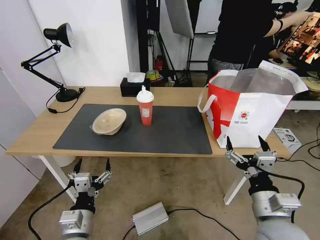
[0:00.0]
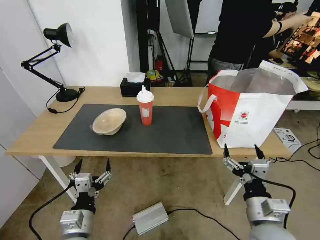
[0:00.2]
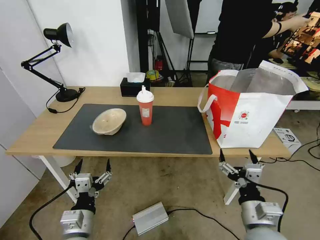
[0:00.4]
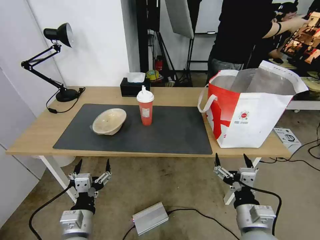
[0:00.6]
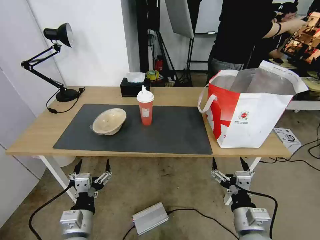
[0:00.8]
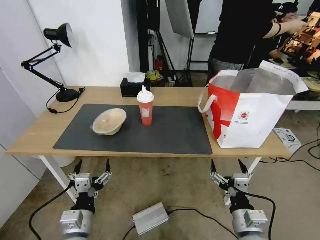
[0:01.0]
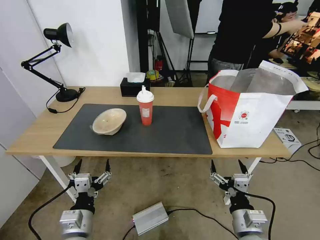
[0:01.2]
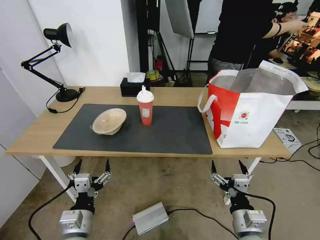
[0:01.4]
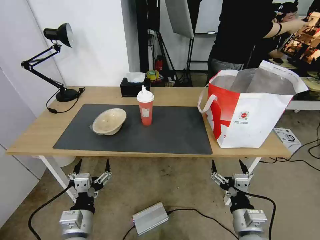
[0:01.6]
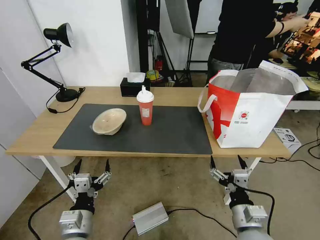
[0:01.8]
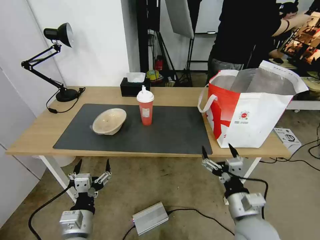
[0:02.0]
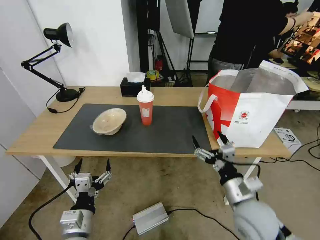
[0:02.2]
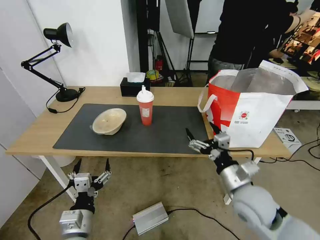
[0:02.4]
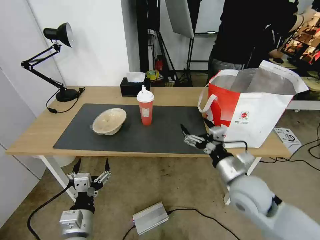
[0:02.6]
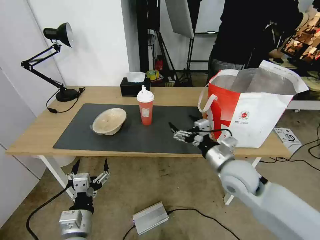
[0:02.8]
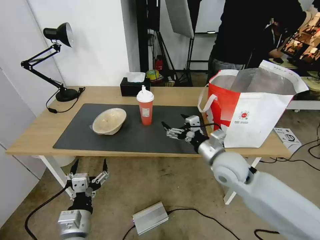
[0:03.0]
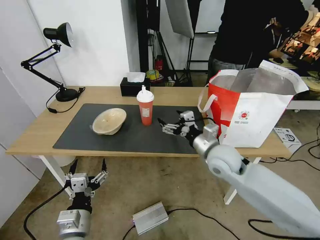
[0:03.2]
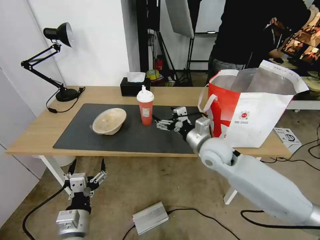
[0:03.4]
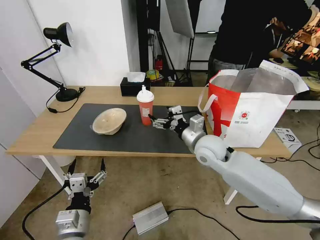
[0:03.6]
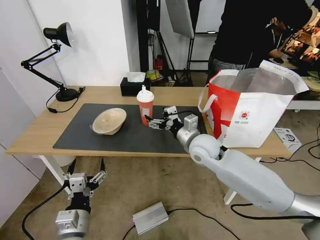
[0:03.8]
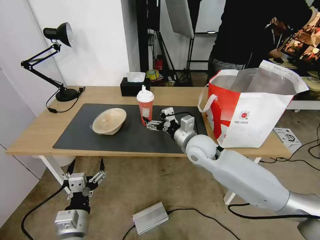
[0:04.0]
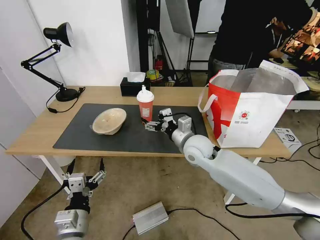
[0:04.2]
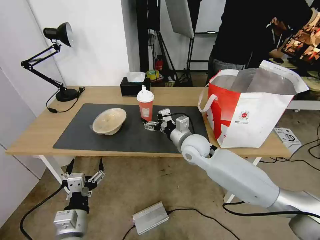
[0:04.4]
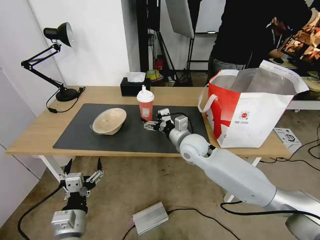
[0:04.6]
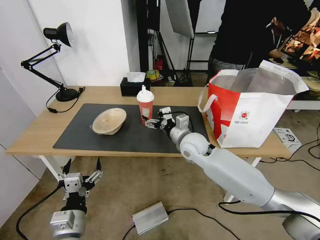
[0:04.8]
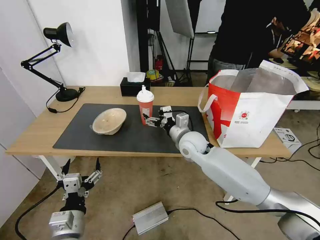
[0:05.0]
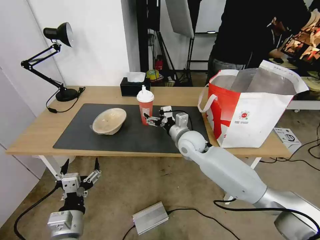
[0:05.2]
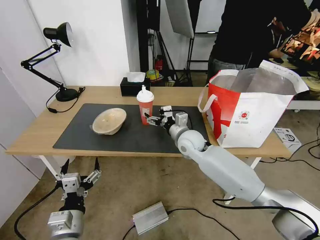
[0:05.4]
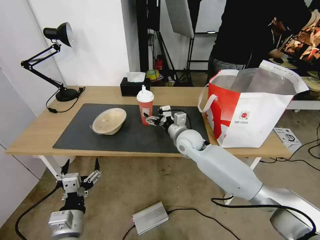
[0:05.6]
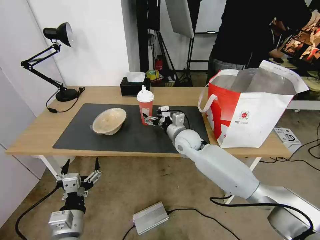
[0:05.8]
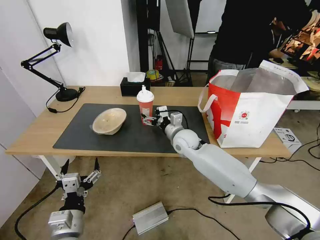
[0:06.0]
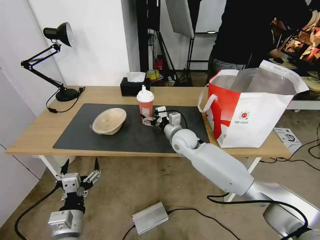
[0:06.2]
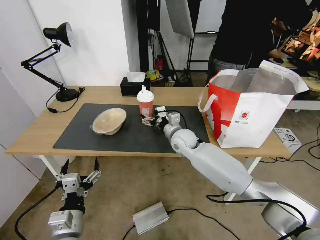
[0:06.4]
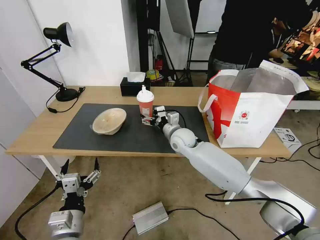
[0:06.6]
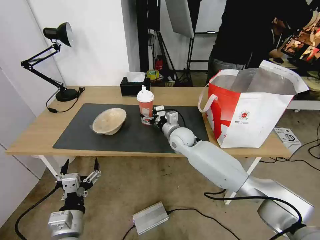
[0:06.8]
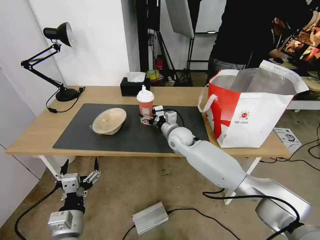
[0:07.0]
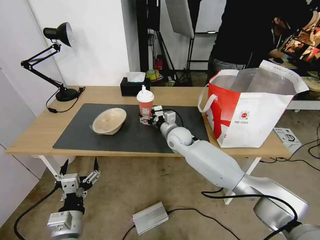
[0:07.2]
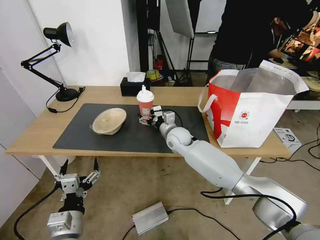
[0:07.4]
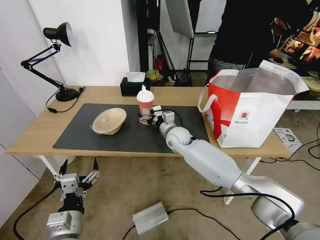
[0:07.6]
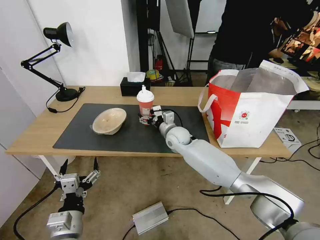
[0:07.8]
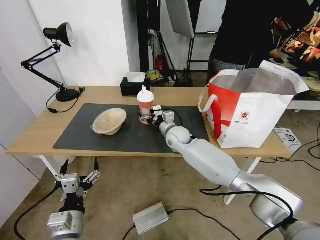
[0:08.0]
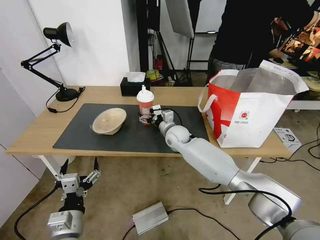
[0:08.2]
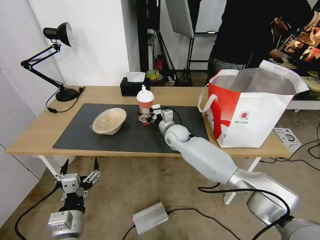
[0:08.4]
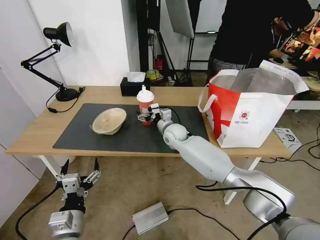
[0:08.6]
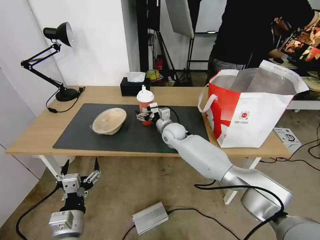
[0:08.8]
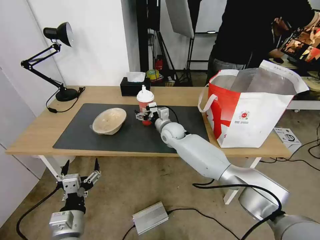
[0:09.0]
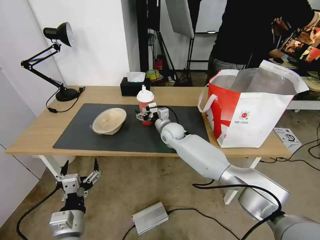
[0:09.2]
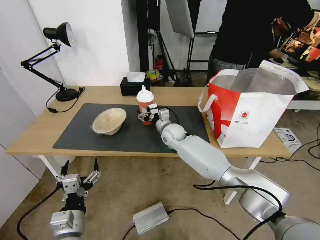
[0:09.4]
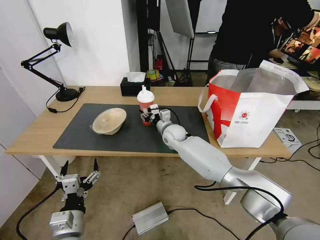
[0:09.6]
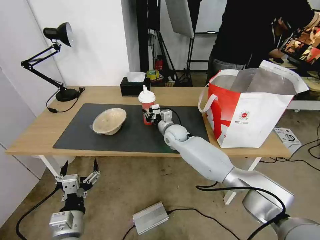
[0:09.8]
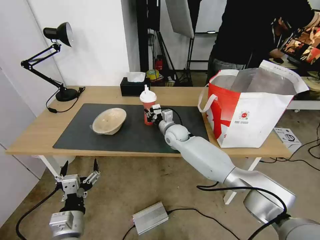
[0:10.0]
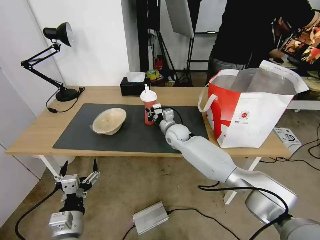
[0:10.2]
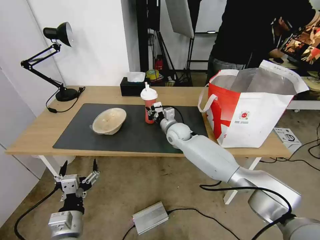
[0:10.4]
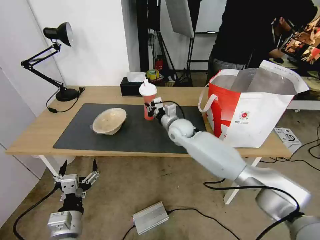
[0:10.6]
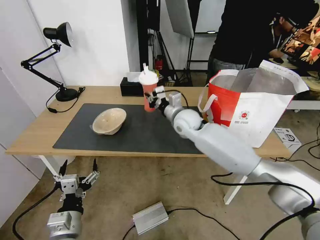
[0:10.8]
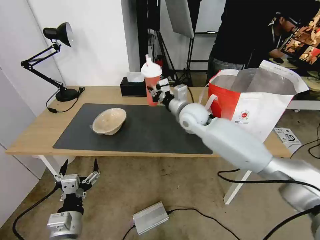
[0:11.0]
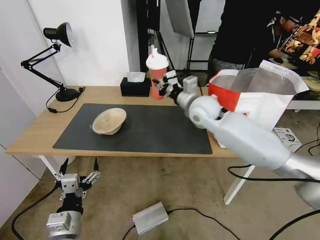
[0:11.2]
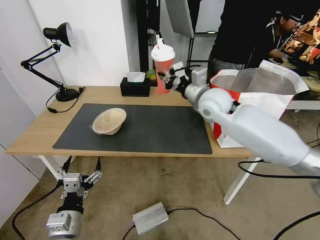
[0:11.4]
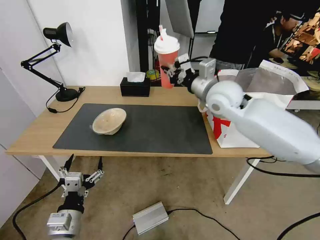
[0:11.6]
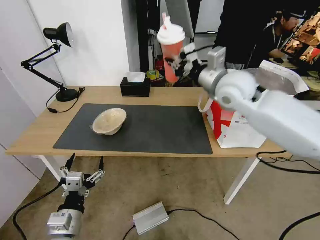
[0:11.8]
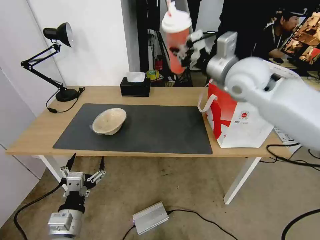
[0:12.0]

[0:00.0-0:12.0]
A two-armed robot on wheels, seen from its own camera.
Task of the whole recording: Pick up the trash from the table and place it into the takeout bag.
0:00.0 to 0:01.6: The right gripper is displaced downward by approximately 10 cm.
0:01.6 to 0:03.0: The right gripper shifts about 20 cm forward and upward.
0:03.0 to 0:04.4: The right gripper moves forward and to the left, some 10 cm.
0:04.4 to 0:06.0: The right gripper ends up some 5 cm from where it was.
0:06.0 to 0:07.6: The grippers make only small movements.
0:07.6 to 0:09.0: The grippers make only small movements.
0:09.0 to 0:10.4: The right gripper closes.
0:10.4 to 0:12.0: The right gripper travels upward and to the right by approximately 30 cm.

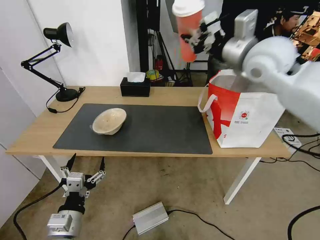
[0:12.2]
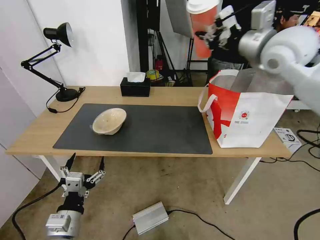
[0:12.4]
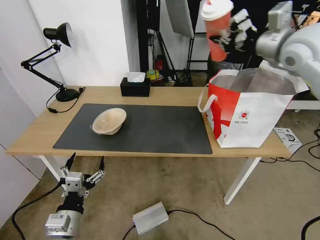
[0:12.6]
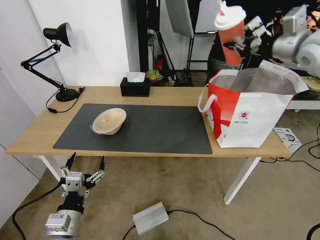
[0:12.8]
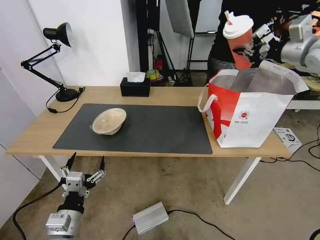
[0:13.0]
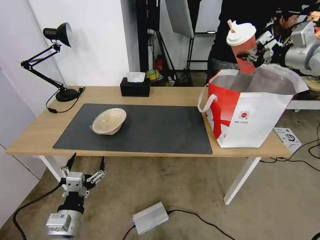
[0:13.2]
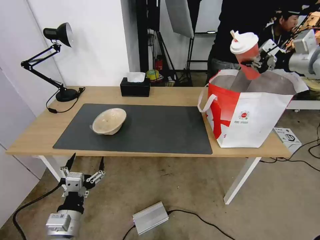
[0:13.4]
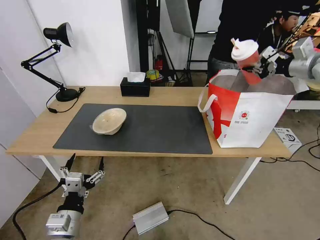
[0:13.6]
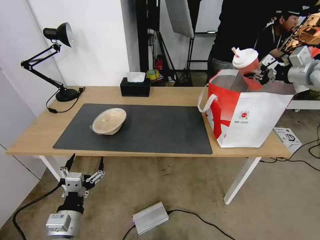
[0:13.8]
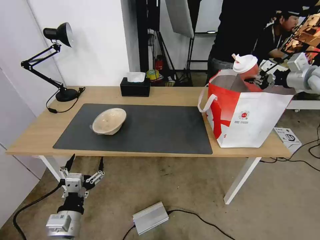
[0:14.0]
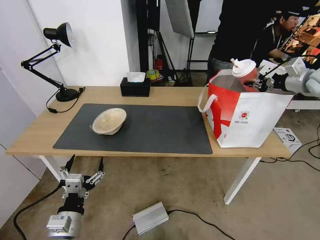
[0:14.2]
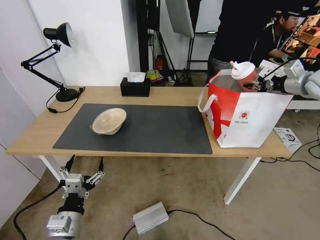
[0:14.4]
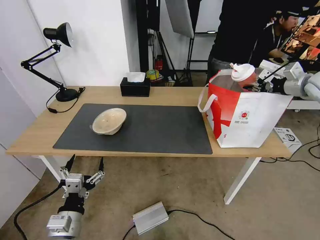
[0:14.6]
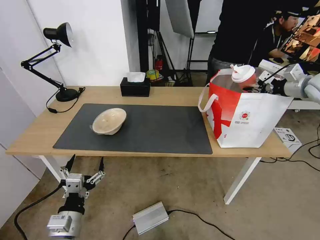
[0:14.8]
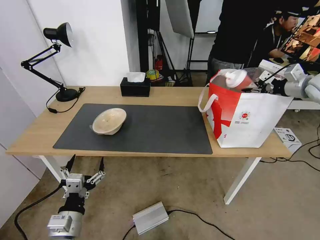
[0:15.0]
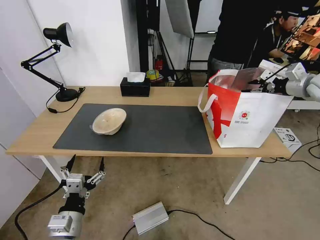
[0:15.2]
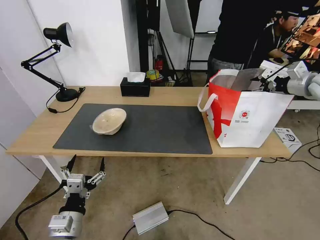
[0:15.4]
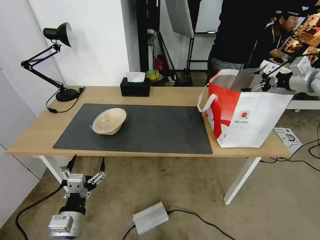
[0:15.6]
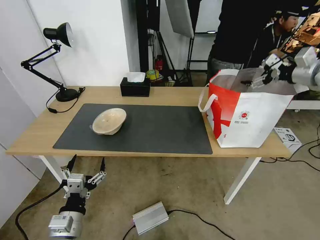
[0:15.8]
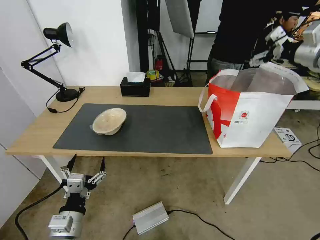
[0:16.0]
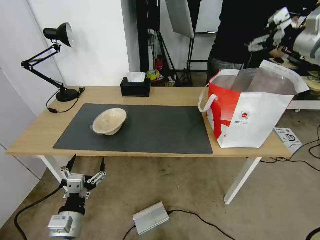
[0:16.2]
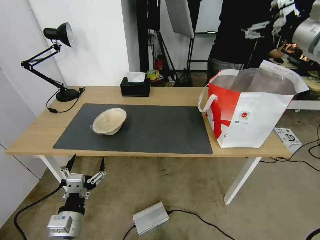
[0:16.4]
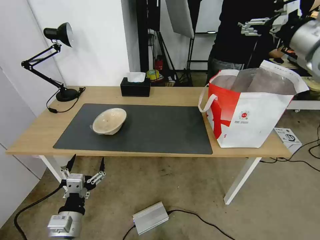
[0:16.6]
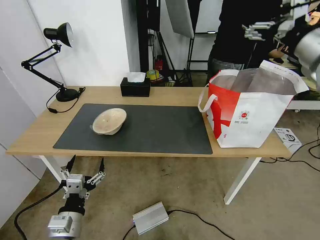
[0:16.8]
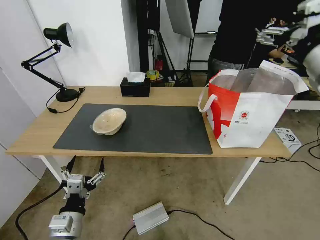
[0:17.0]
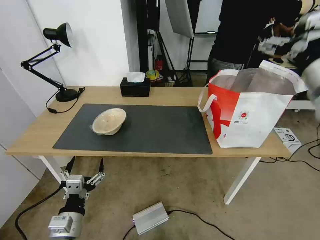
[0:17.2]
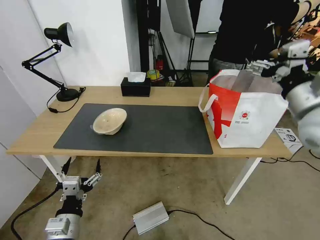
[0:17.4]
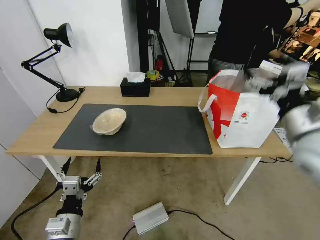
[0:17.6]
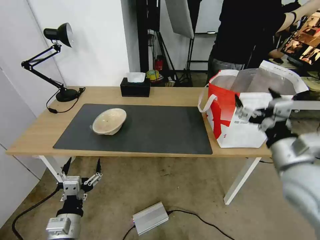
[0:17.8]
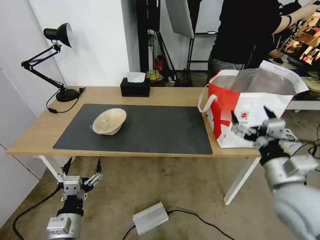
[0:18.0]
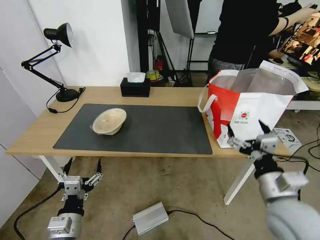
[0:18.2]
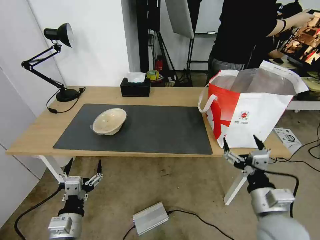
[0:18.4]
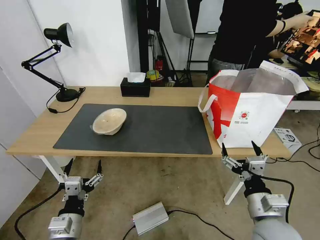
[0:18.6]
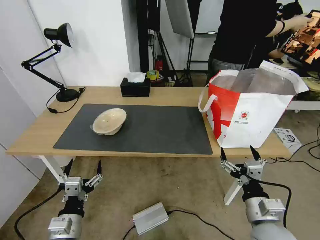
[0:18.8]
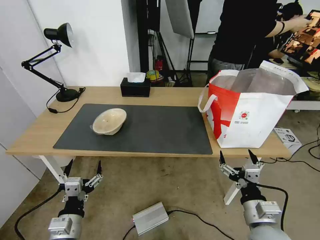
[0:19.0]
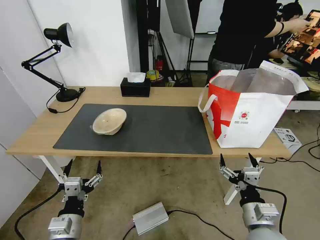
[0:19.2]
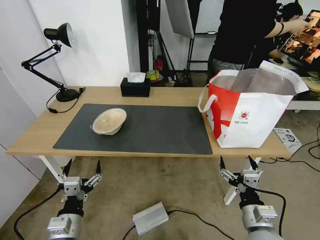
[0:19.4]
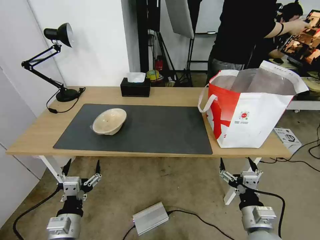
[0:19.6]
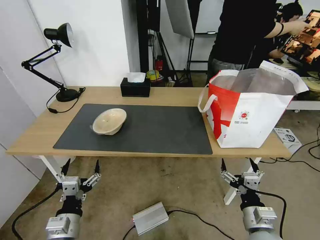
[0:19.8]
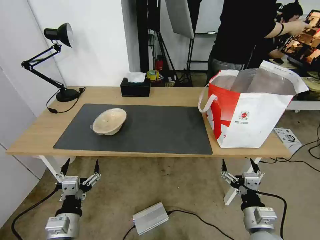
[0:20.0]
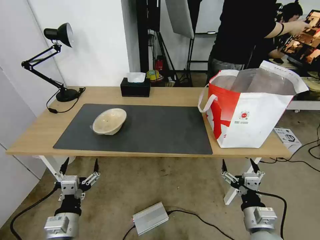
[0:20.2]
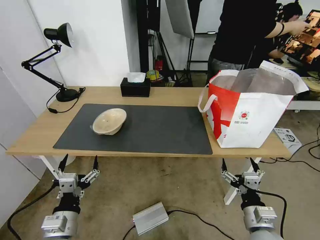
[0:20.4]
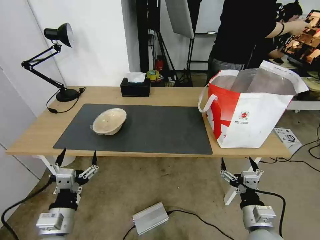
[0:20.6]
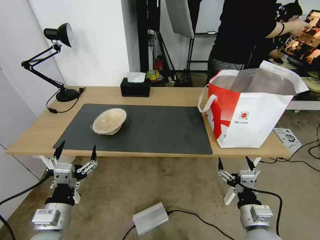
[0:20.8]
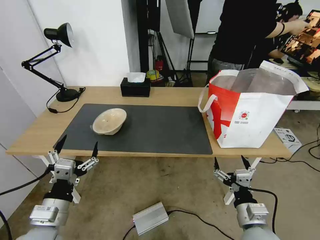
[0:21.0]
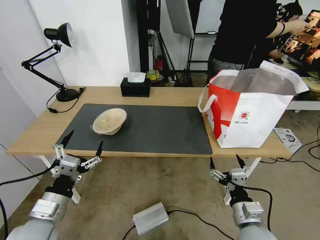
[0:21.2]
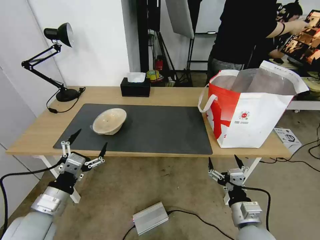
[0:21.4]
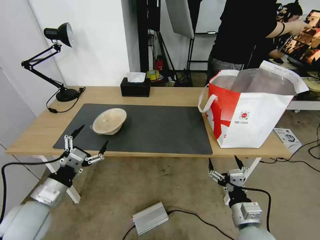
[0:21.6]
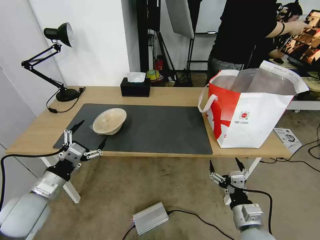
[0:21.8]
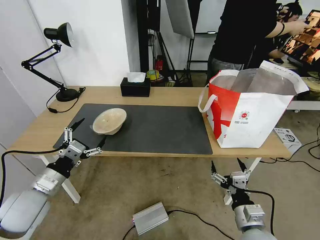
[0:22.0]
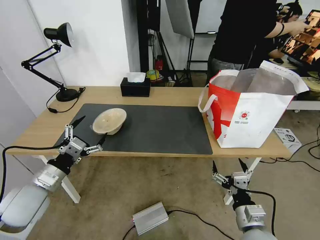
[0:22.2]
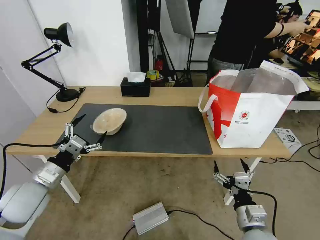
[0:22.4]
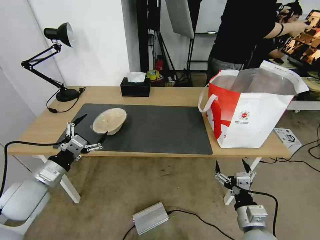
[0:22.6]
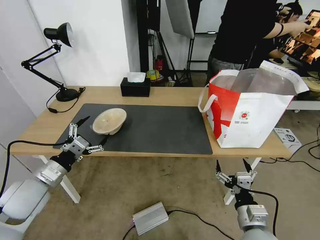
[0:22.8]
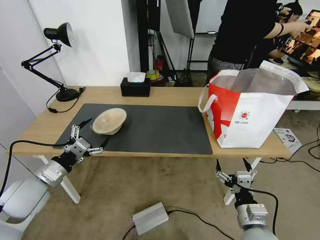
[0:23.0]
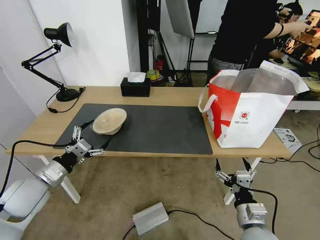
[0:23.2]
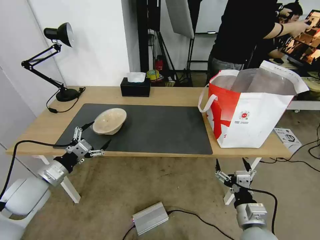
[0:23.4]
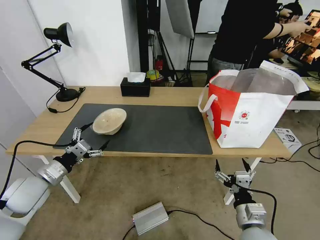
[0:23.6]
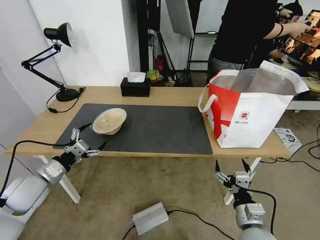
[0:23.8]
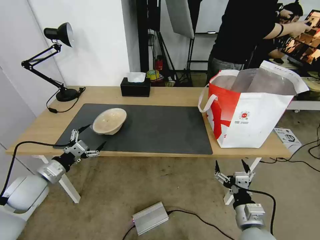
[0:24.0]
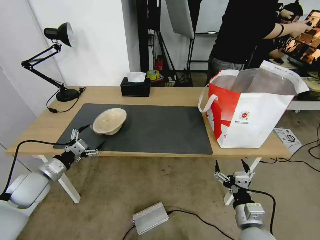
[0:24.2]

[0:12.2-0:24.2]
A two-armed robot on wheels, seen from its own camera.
Task of the whole recording: Pick up the trash from the table and place it into the takeout bag.
0:12.2 to 0:13.8: The right gripper travels to the right by roughly 25 cm.
0:13.8 to 0:15.2: The right gripper opens up.
0:15.2 to 0:16.6: The right gripper travels to the left, upward and backward by roughly 20 cm, and opens its fingers.
0:16.6 to 0:18.2: The right gripper travels downward and backward by about 35 cm.
0:18.2 to 0:19.8: The right gripper heads downward, covering approximately 10 cm.
0:19.8 to 0:21.2: The left gripper goes some 5 cm upward.
0:21.2 to 0:22.6: The left gripper is displaced forward and to the left by approximately 10 cm.
0:22.6 to 0:24.2: The left gripper travels forward and to the left by roughly 5 cm.
